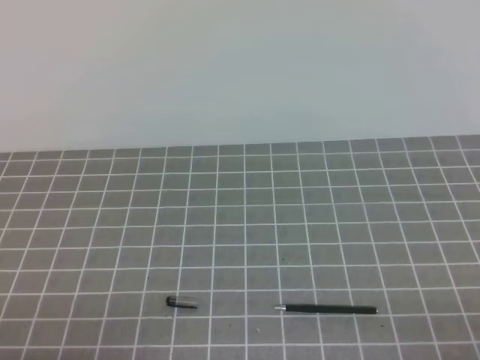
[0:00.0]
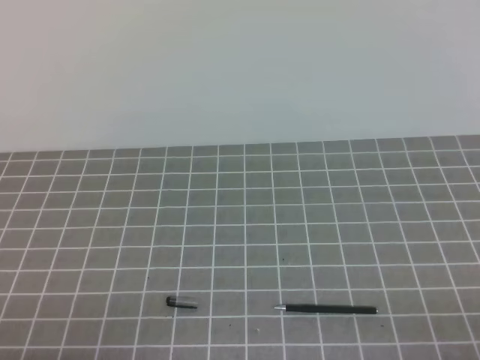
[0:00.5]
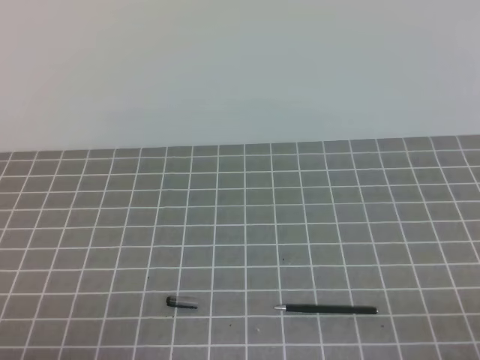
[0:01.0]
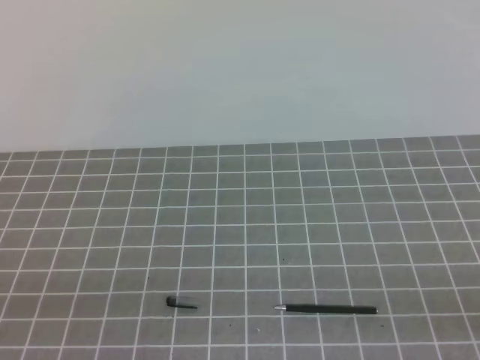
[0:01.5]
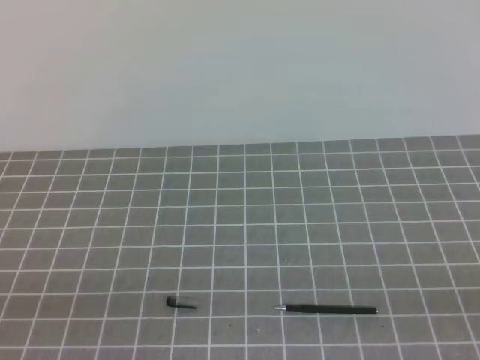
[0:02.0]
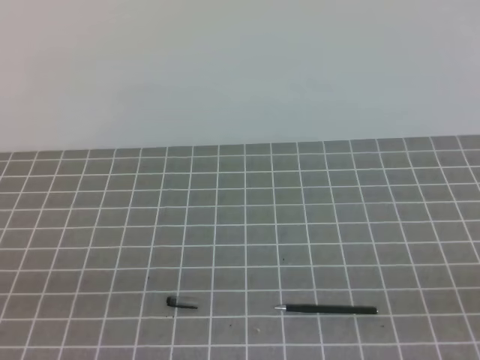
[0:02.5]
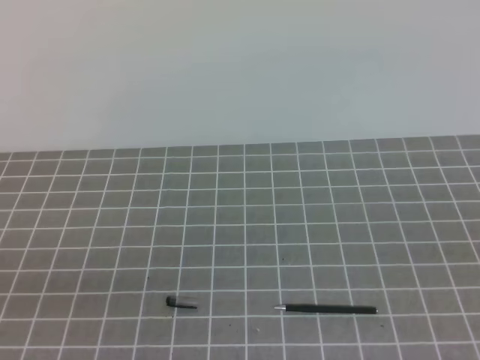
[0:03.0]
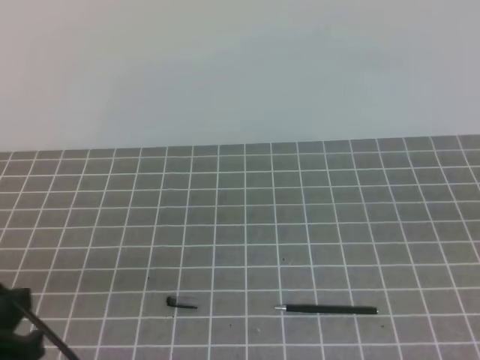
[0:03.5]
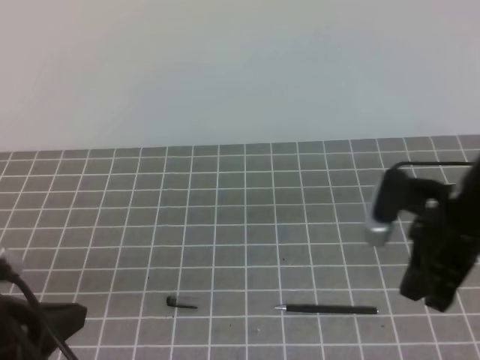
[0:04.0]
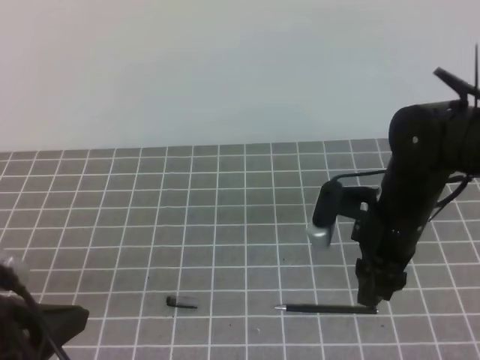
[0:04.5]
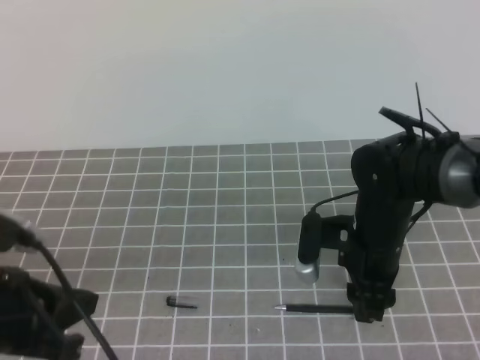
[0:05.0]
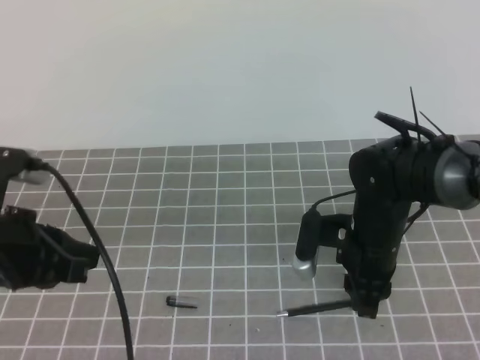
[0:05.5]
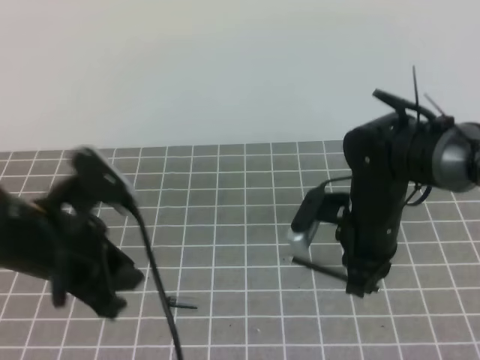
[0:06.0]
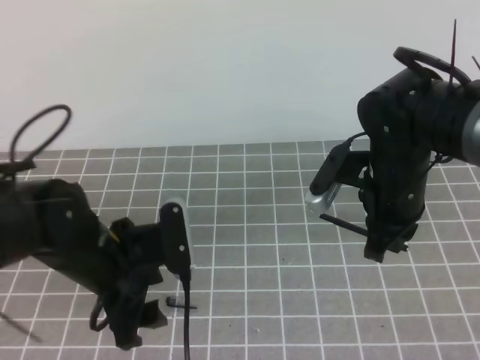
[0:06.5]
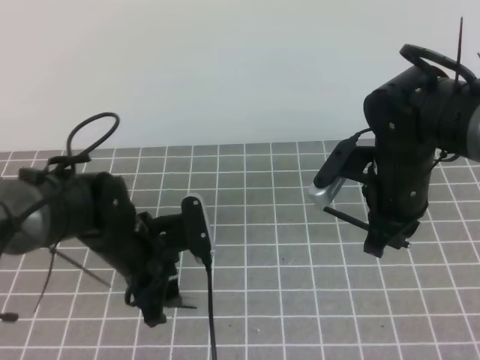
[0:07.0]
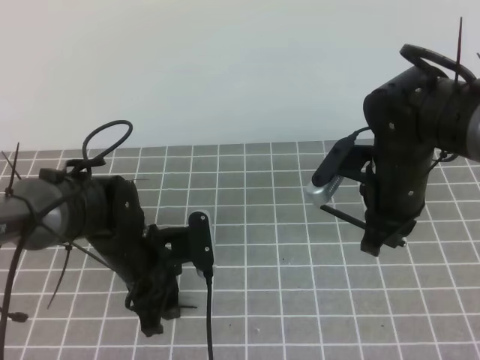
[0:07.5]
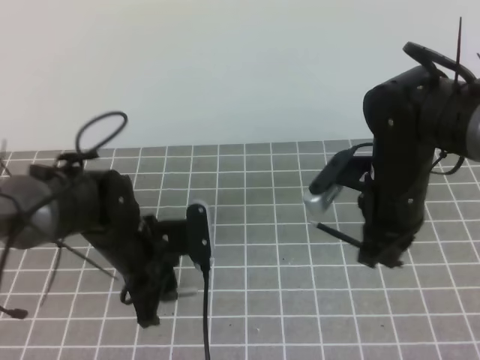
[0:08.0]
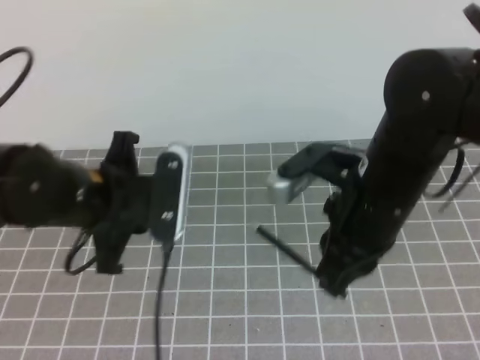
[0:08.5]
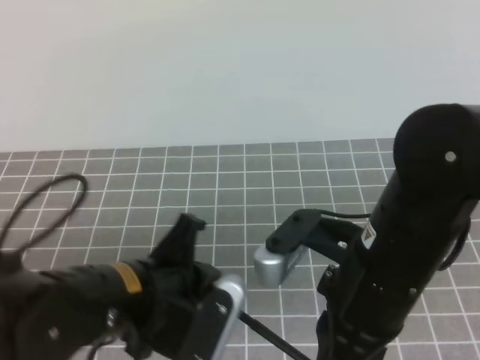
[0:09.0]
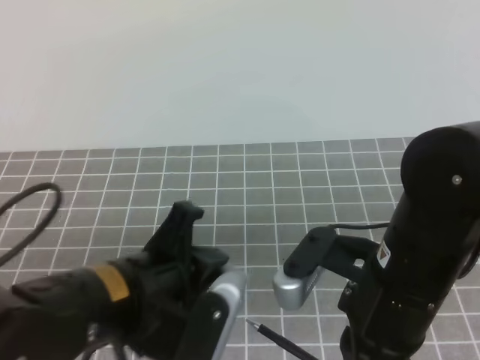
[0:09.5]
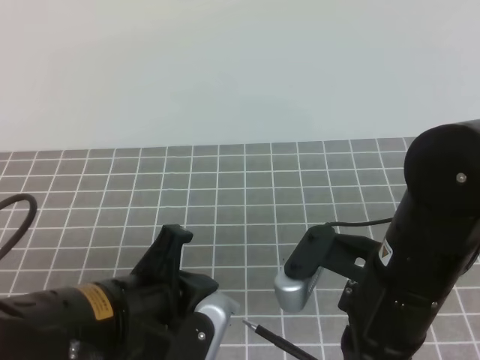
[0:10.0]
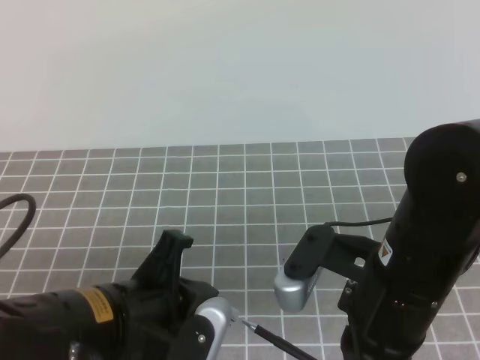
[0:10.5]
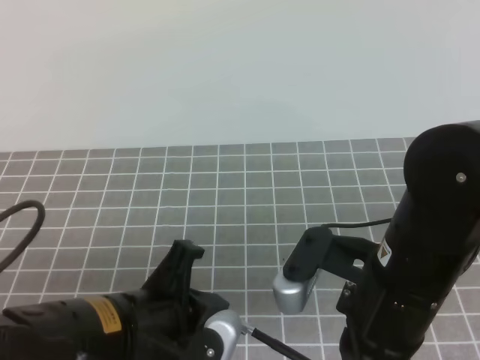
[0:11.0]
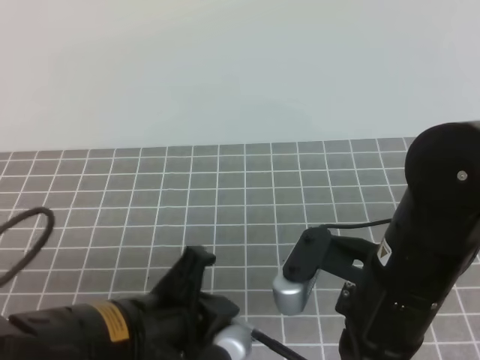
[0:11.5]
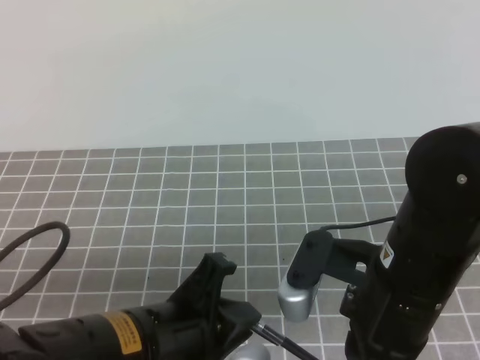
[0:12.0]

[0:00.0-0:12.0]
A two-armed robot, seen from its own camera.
Task of the whole recording: on the grey tablecloth, hold the pen cap in one hand and the pen in the other, then cover the pen cap.
Step, 0:00.0 to 0:03.5: Pick up the pen.
Step, 0:04.0 to 0:04.5: Pick up the pen cap.
Step, 0:05.5 to 0:07.5: Insert the pen into the cap.
0:02.0 to 0:04.0: The right gripper goes roughly 25 cm forward and to the left. Meanwhile the left gripper travels forward and to the right by roughly 10 cm.
0:04.0 to 0:06.0: The left gripper moves forward, about 10 cm, and opens; the right gripper moves to the left, downward and forward, approximately 10 cm, and opens, then closes again.
0:06.0 to 0:08.0: The left gripper is displaced downward, forward and to the right by approximately 10 cm, and closes its fingers. Meanwhile the right gripper shifts some 5 cm upward.
0:08.0 to 0:10.0: The right gripper goes roughly 15 cm backward; the left gripper heads backward and upward, covering roughly 15 cm.
0:10.0 to 0:12.0: The grippers move only a little.

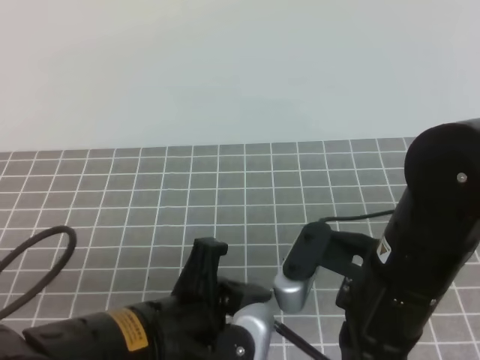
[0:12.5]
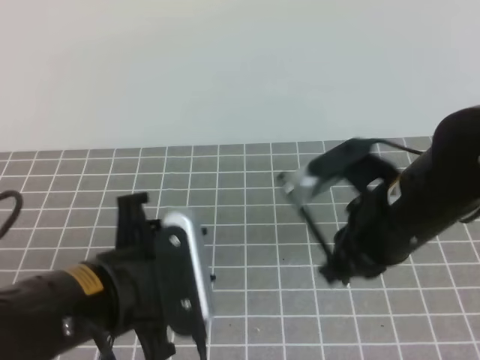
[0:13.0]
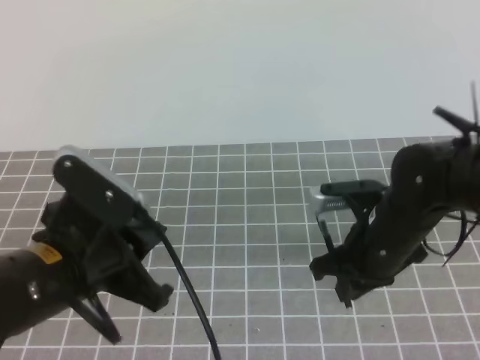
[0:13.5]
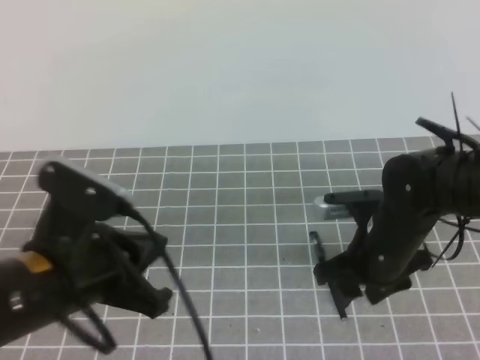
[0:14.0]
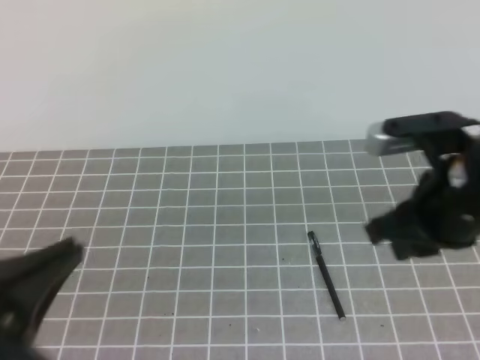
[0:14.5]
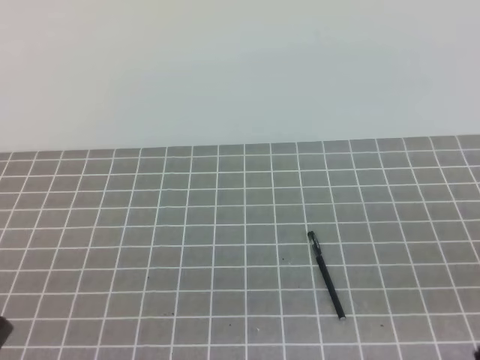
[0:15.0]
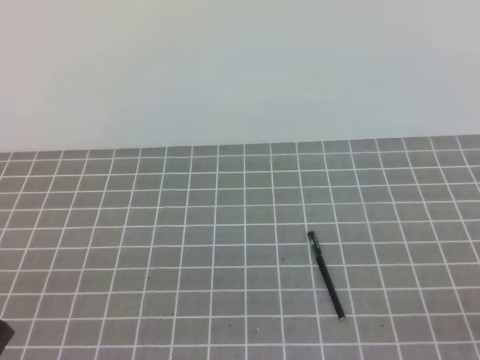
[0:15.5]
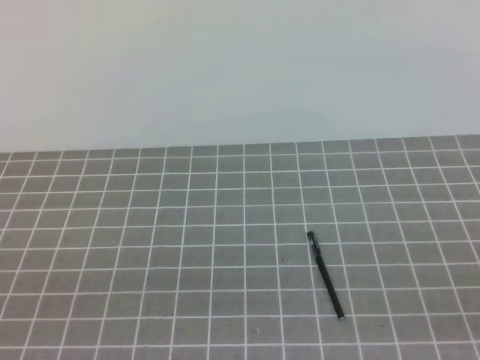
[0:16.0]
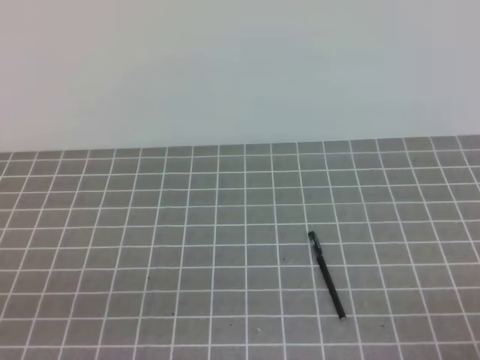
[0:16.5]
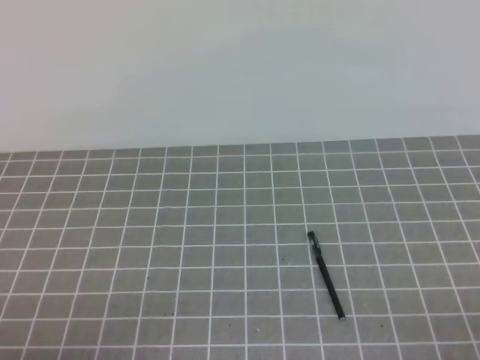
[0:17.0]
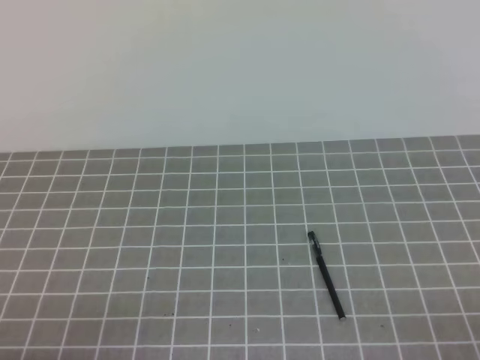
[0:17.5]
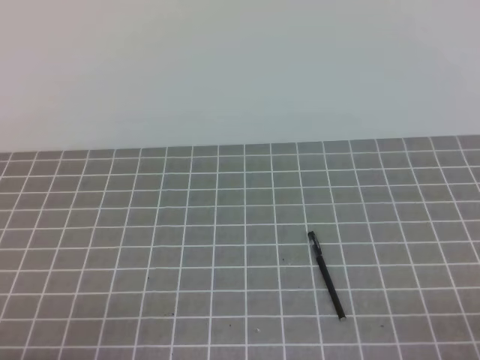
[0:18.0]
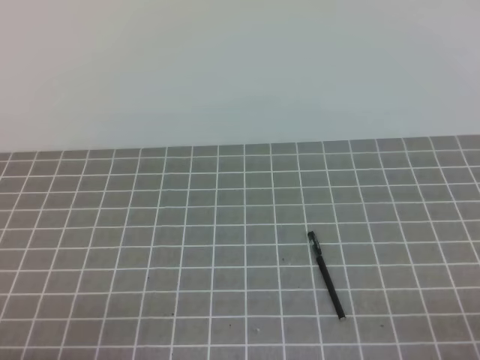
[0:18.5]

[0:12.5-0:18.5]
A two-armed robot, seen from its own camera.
Task of the whole recording: on the grey tablecloth, hold the pen cap in one hand and the pen in the other, then cover the pen cap.
0:12.5 to 0:14.5: The left gripper shifts about 10 cm to the left, and closes its fingers, while the right gripper heads to the right, covering about 5 cm, travels downward and back again, approximately 10 cm each way, and opens, then closes once more.
0:14.5 to 0:16.5: The right gripper travels backward, to the right and downward by about 25 cm. Meanwhile the left gripper shifts roughly 5 cm backward and downward.
